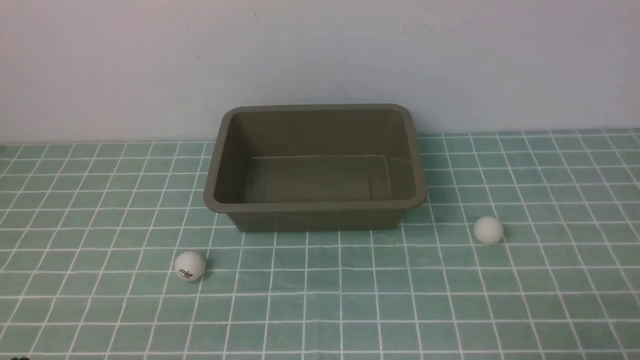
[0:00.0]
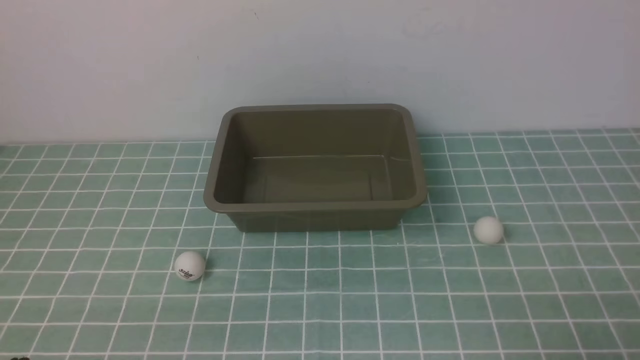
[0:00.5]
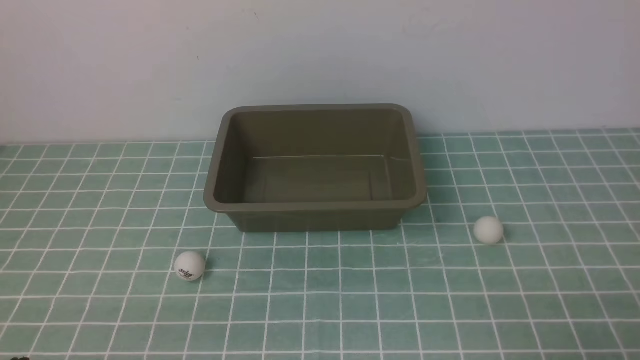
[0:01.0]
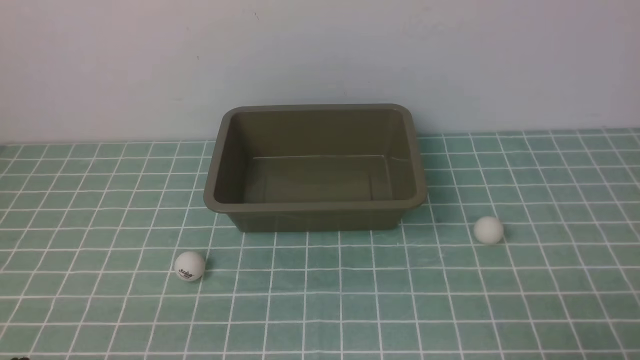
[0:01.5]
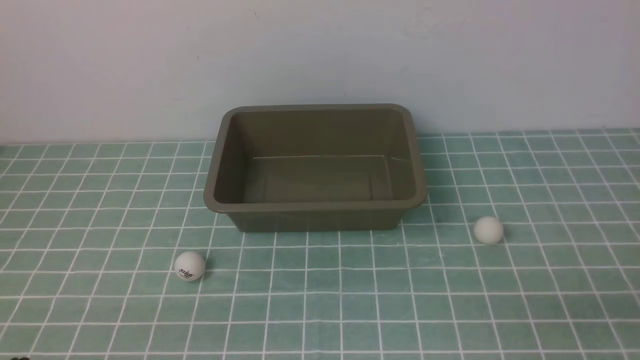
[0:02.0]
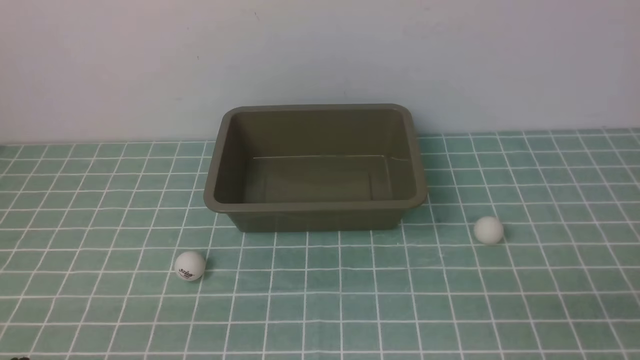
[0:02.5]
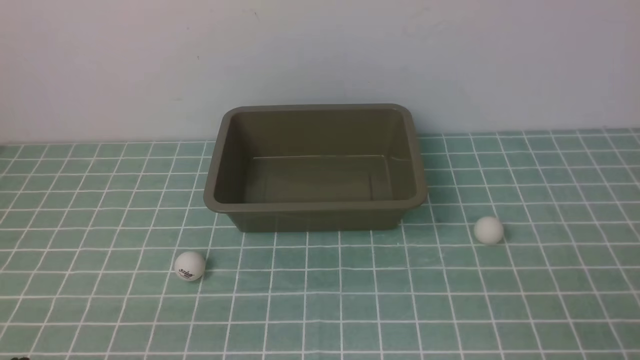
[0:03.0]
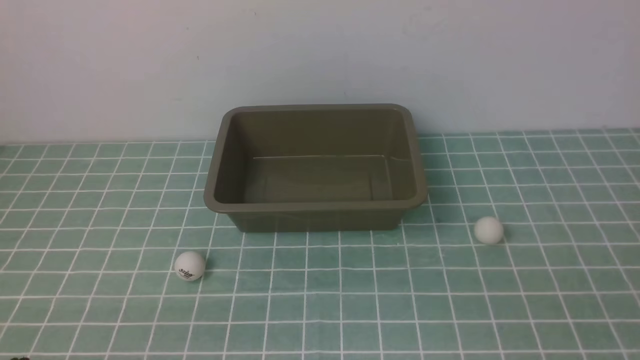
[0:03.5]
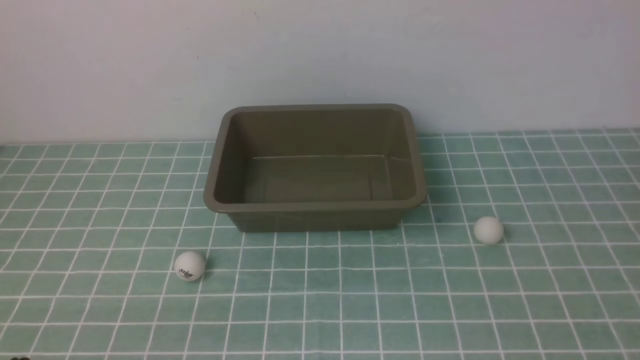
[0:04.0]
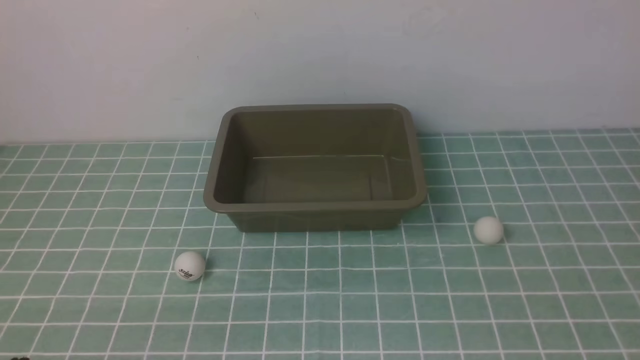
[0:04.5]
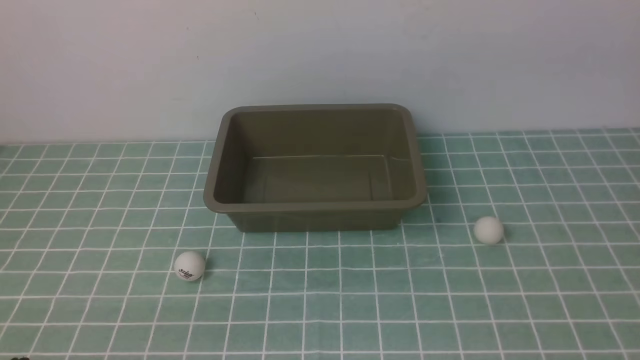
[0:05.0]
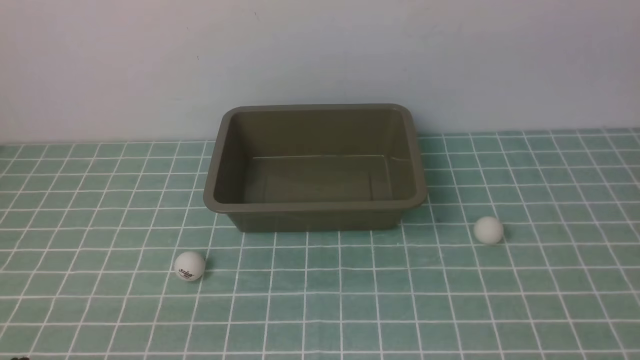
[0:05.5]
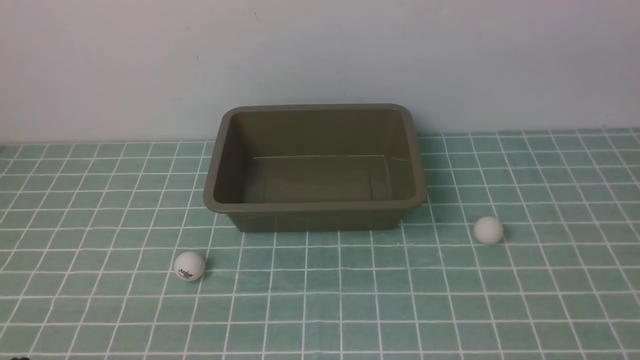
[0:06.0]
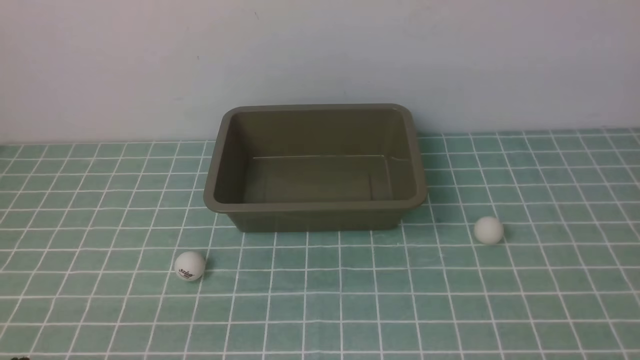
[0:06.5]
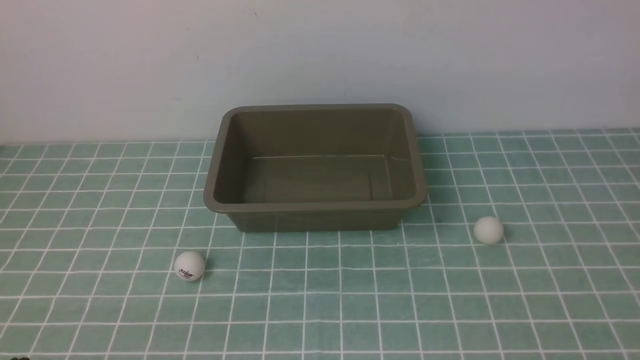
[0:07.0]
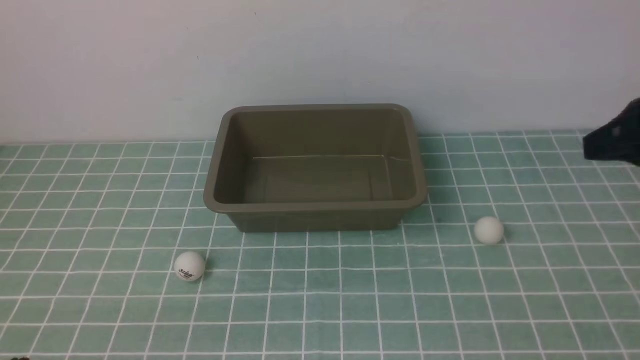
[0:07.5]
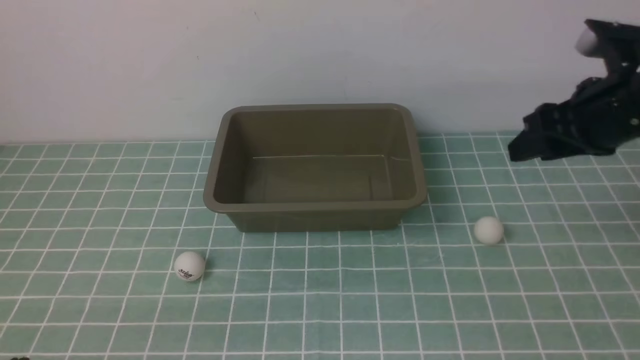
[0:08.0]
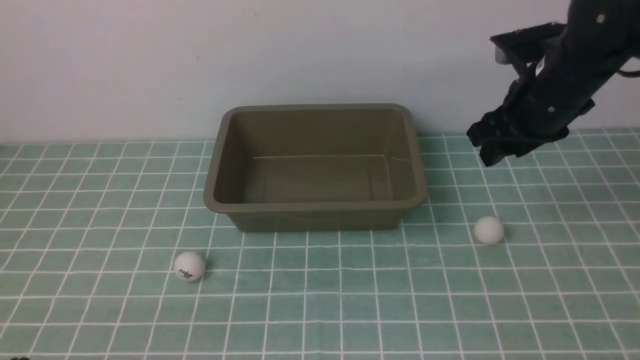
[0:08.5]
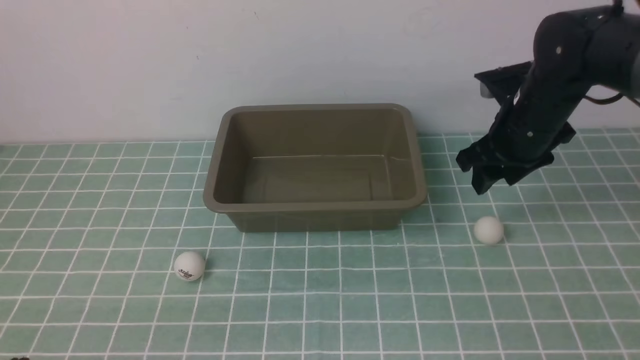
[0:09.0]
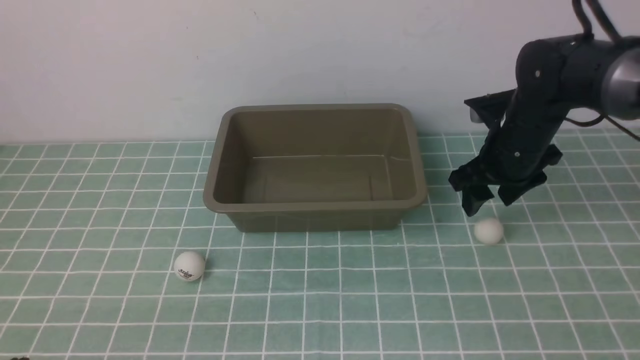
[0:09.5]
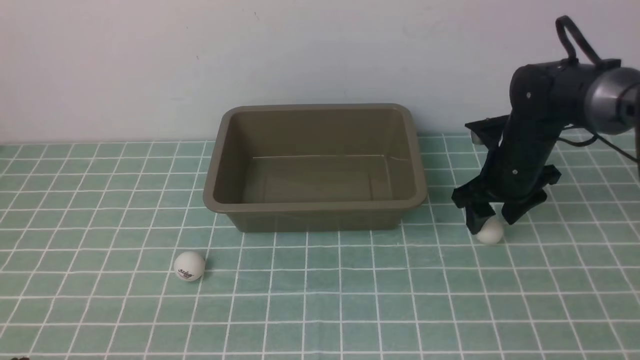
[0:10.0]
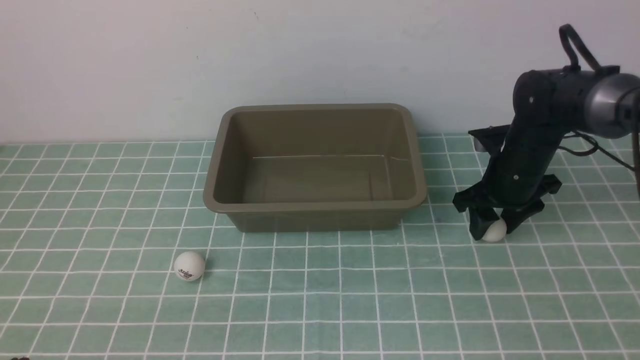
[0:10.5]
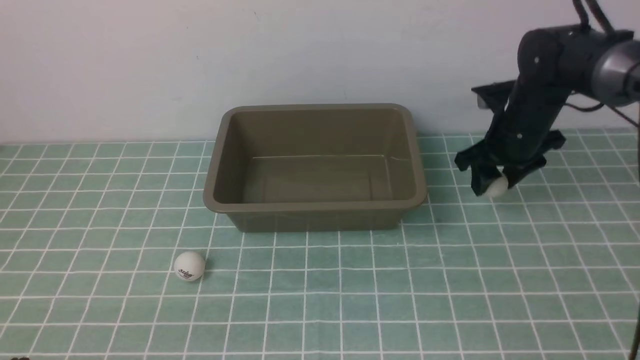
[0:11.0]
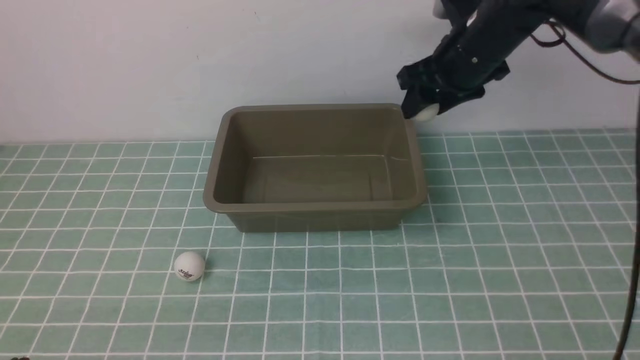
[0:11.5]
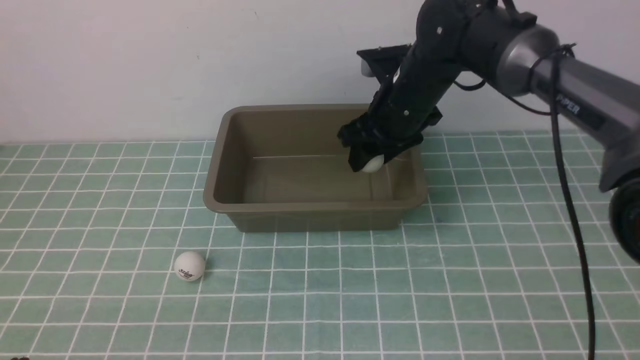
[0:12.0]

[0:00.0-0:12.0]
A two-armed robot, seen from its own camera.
Step, 0:00.0 to 0:11.0: use the right arm to clamp the table tennis ball closest to it.
0:06.0 to 0:08.0: The right gripper goes roughly 25 cm downward, forward and to the left, and opens.
0:08.0 to 0:10.0: The right gripper travels downward and forward by some 15 cm.
0:10.0 to 0:12.0: The right gripper travels to the left and upward by approximately 15 cm.

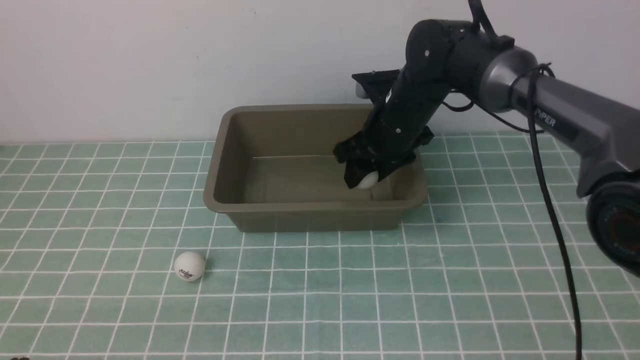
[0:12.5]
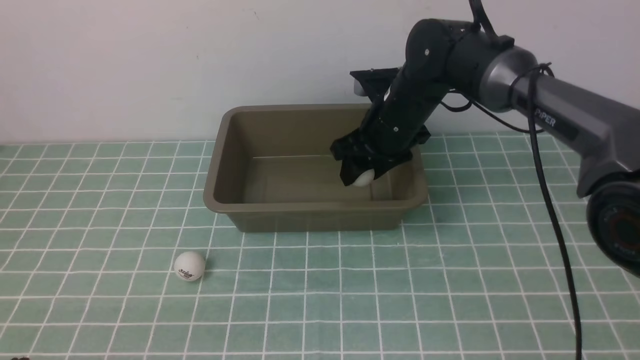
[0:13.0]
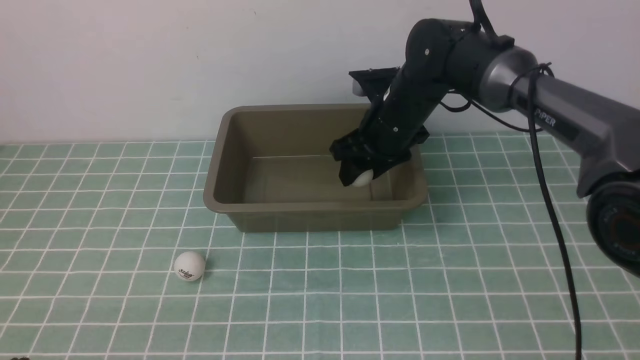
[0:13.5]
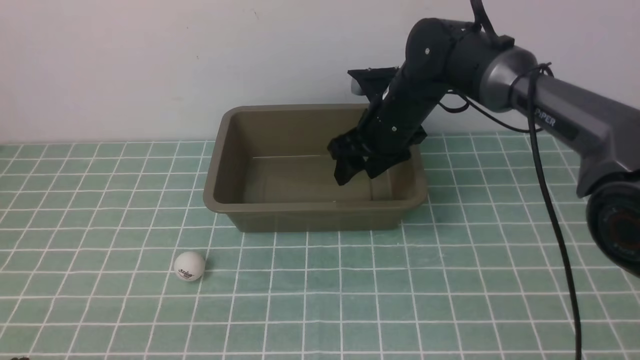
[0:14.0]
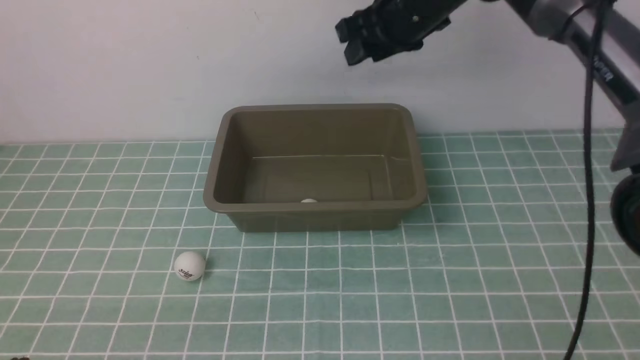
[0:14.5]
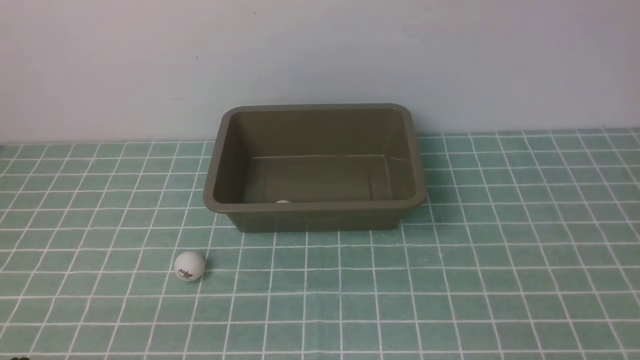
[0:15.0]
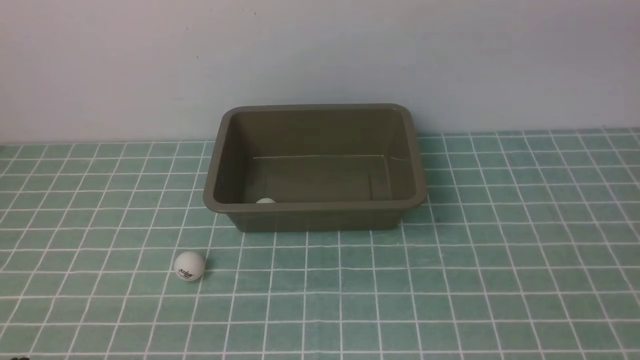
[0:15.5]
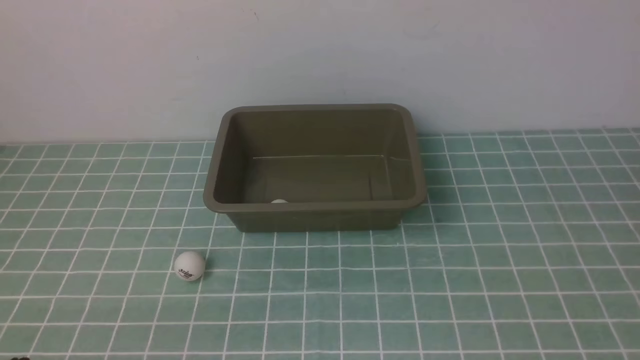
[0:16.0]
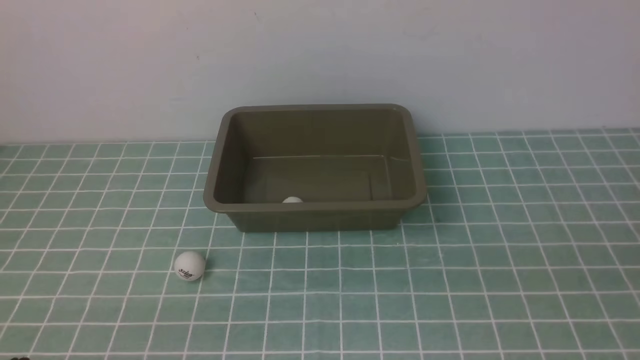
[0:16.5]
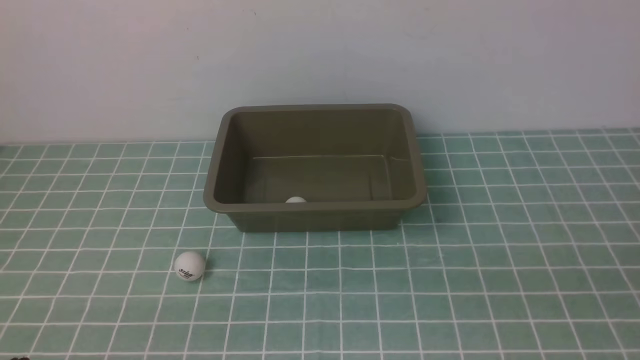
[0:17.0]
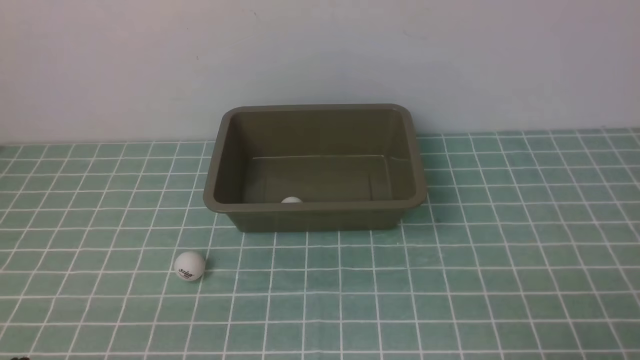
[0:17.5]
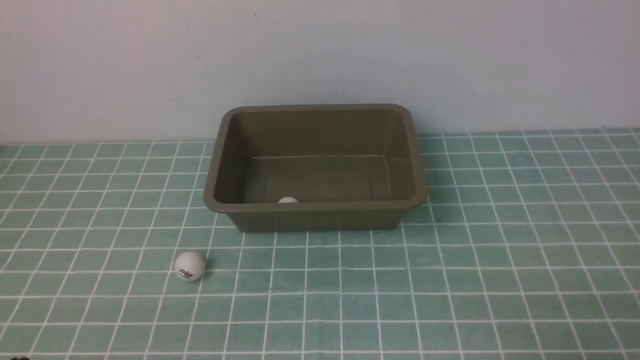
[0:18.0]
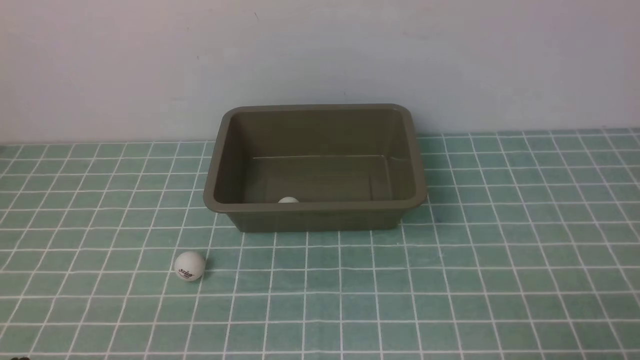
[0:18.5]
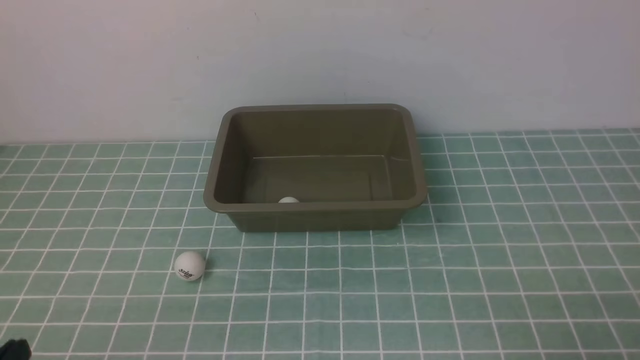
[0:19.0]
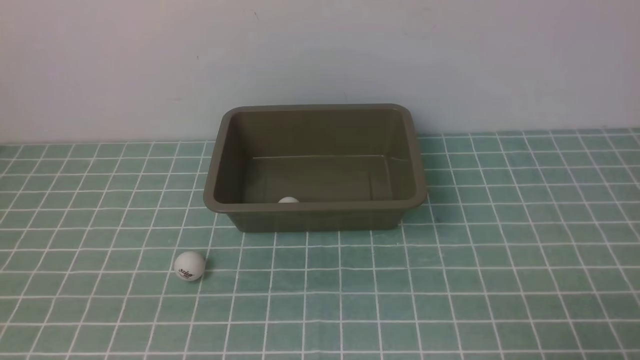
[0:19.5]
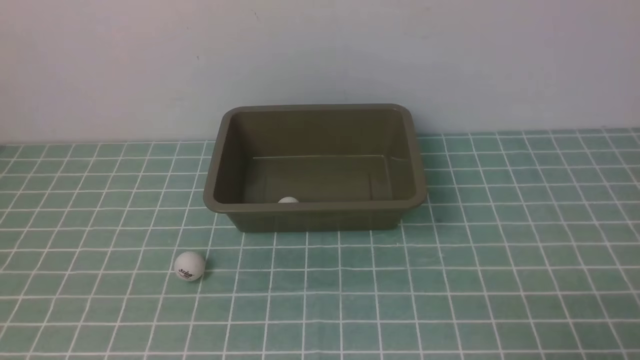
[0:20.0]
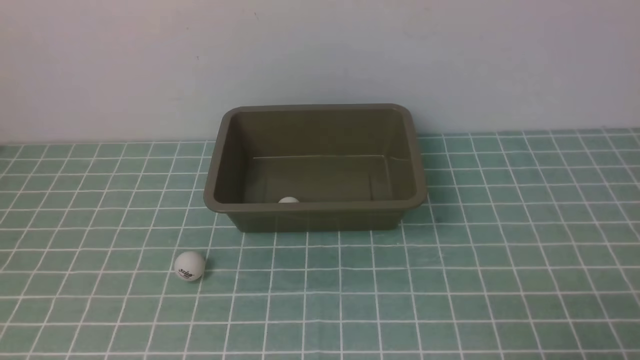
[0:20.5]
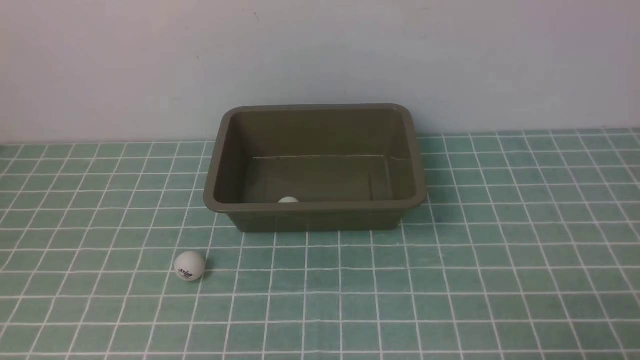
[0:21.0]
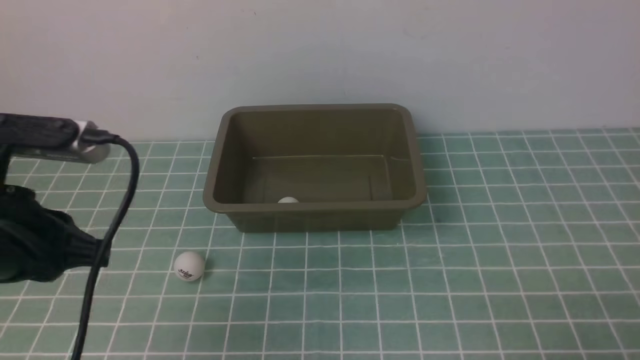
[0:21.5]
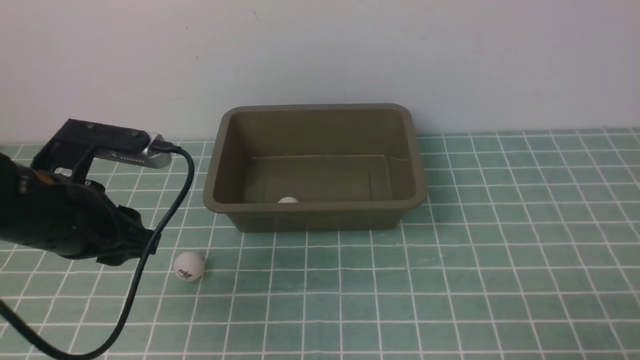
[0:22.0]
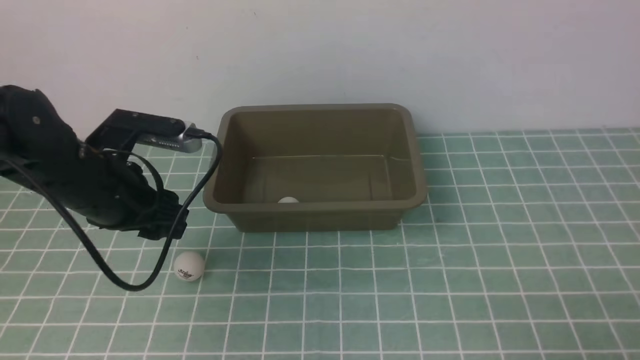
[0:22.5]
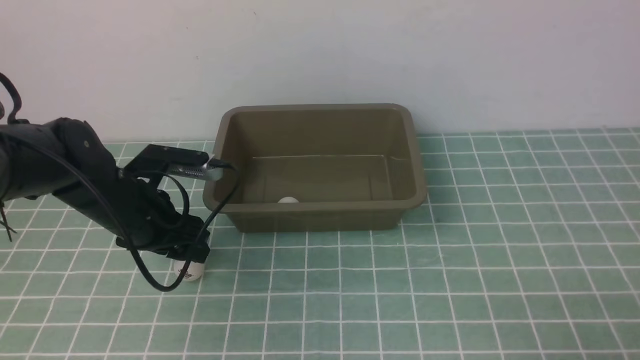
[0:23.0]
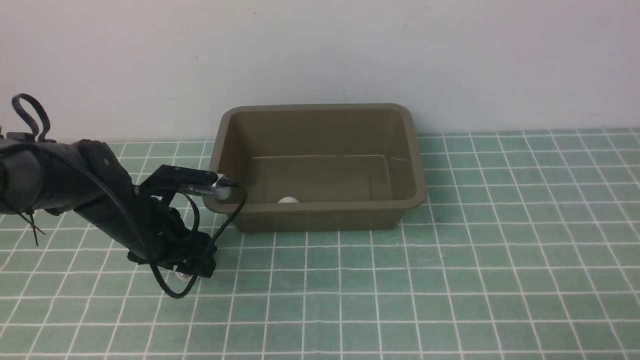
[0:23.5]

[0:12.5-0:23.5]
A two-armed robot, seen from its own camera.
0:12.5 to 0:14.5: The right gripper is displaced upward by about 15 cm.
0:14.5 to 0:16.0: The right gripper heads backward and to the right, covering roughly 35 cm, and closes its fingers.
0:20.0 to 0:21.5: The left gripper heads forward and upward, covering about 15 cm.
0:21.5 to 0:23.5: The left gripper travels forward and downward by roughly 25 cm, and opens up.
